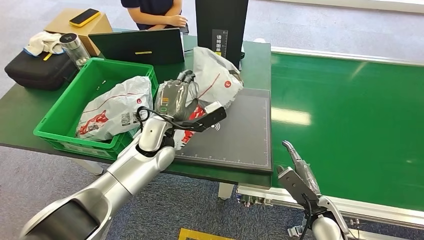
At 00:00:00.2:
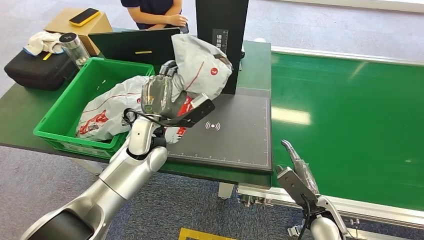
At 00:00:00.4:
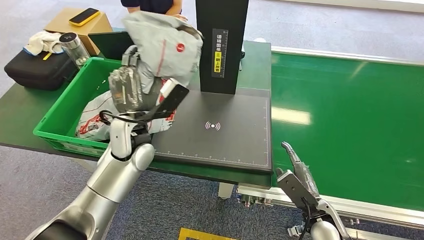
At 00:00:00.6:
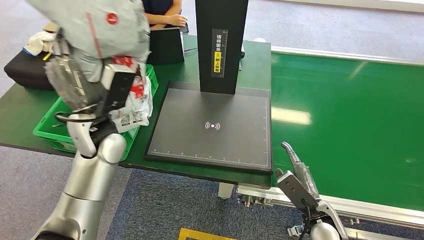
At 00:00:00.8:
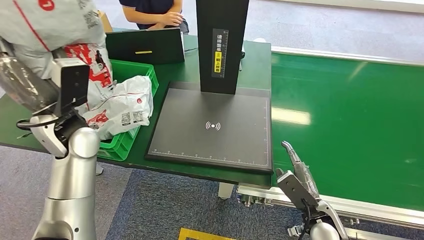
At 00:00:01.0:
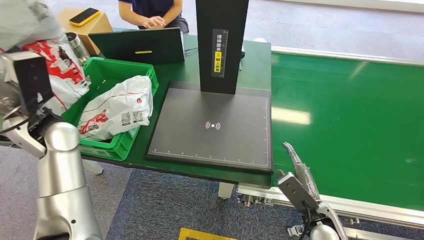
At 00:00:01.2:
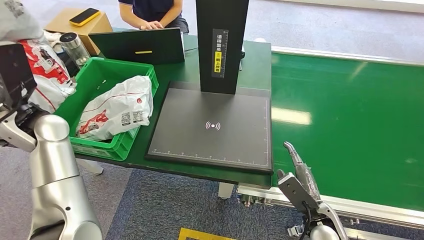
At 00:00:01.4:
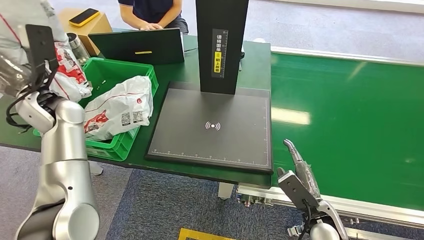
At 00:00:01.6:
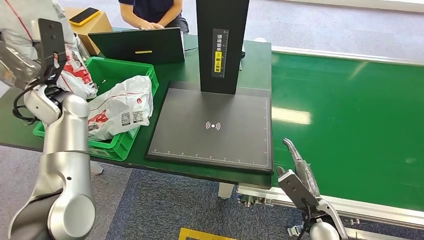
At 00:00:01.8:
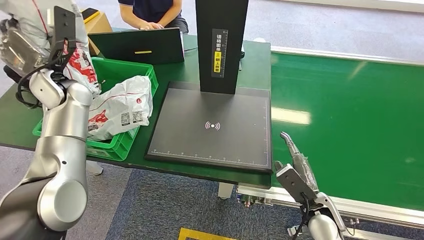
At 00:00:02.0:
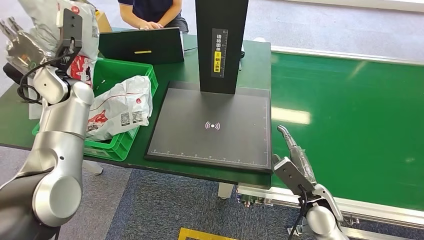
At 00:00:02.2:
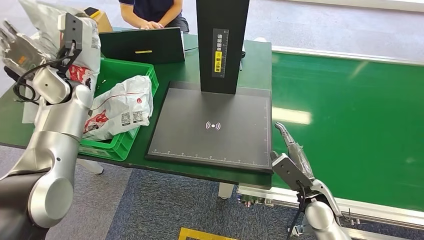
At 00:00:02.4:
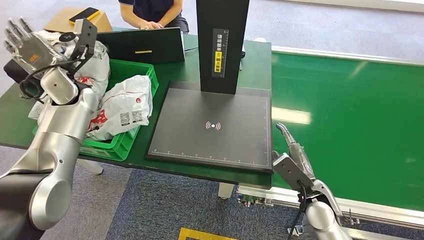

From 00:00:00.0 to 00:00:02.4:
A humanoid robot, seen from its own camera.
Step, from 00:00:00.2 to 00:00:02.4: Place the package into the parcel locker.

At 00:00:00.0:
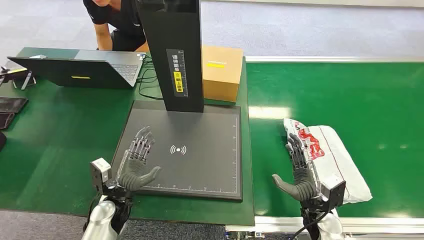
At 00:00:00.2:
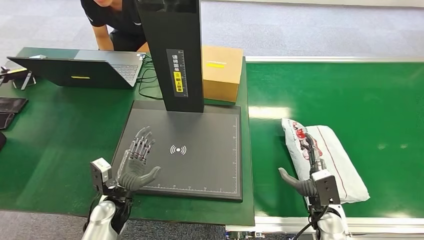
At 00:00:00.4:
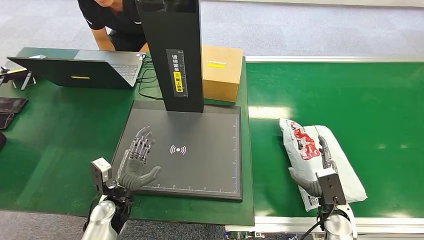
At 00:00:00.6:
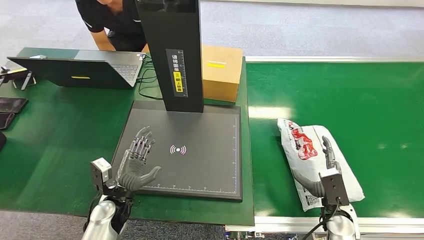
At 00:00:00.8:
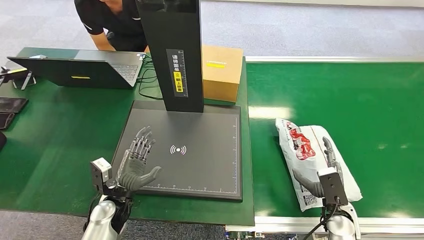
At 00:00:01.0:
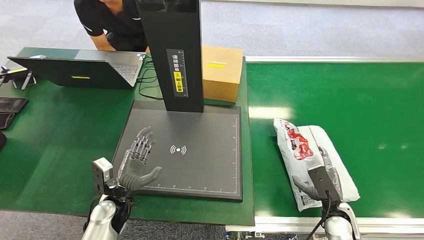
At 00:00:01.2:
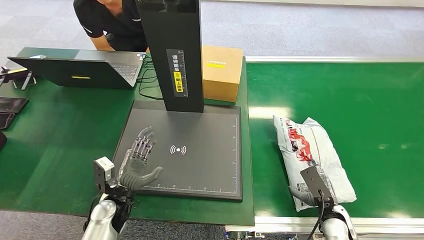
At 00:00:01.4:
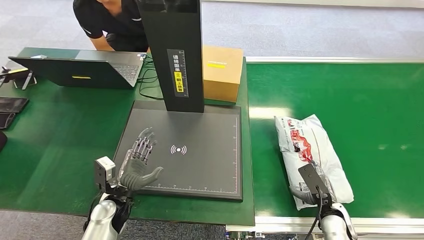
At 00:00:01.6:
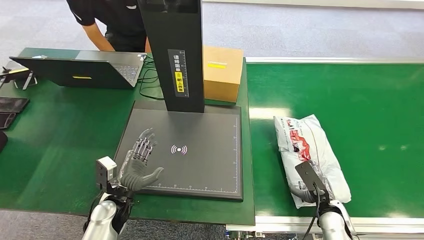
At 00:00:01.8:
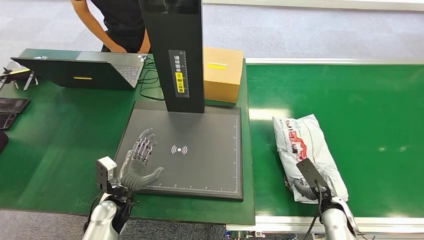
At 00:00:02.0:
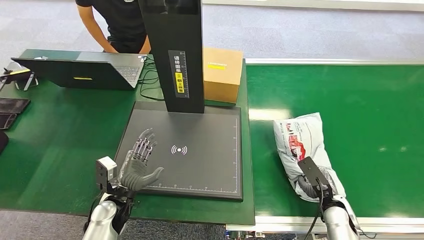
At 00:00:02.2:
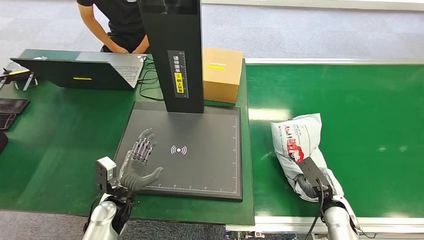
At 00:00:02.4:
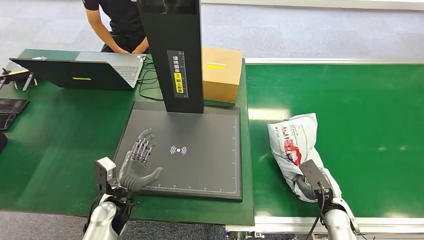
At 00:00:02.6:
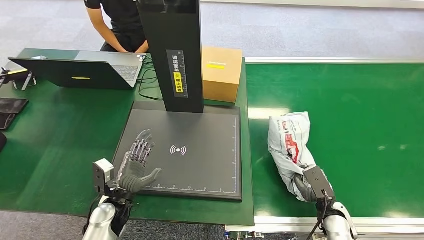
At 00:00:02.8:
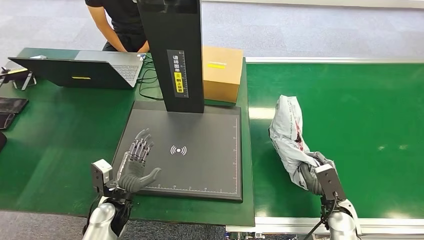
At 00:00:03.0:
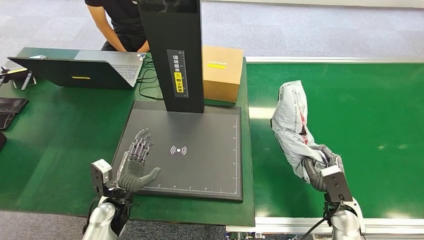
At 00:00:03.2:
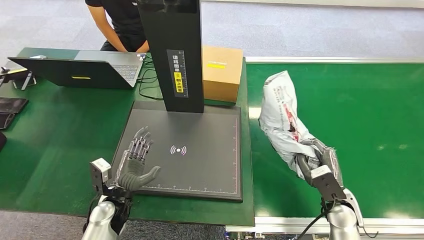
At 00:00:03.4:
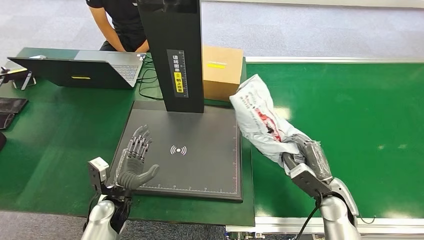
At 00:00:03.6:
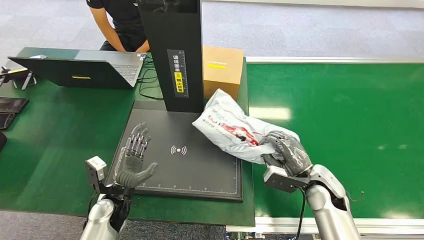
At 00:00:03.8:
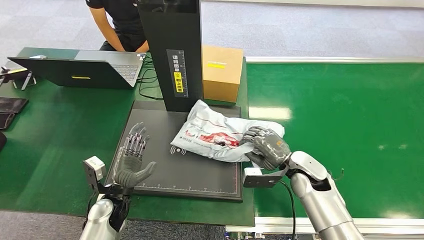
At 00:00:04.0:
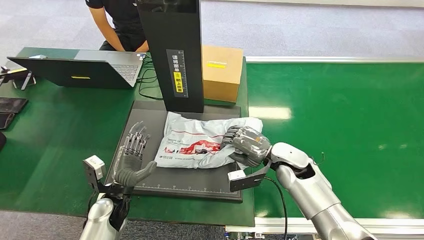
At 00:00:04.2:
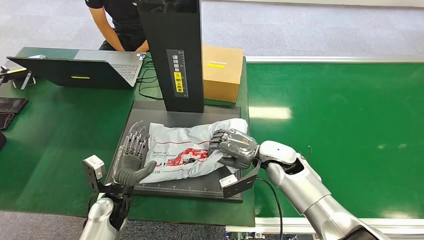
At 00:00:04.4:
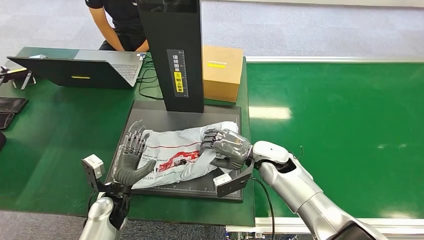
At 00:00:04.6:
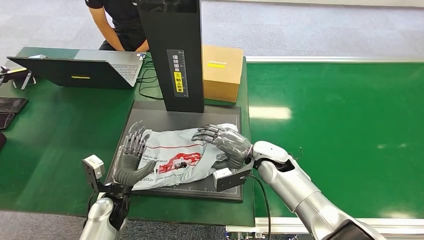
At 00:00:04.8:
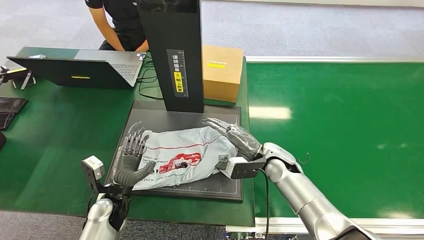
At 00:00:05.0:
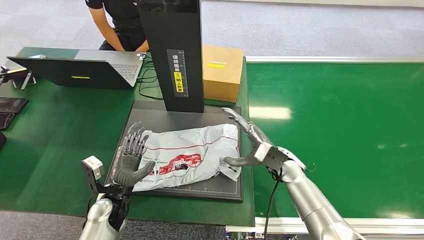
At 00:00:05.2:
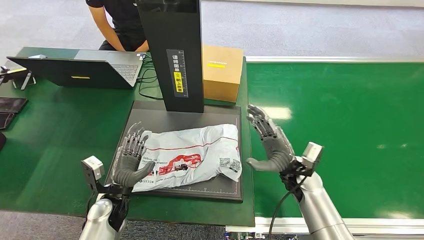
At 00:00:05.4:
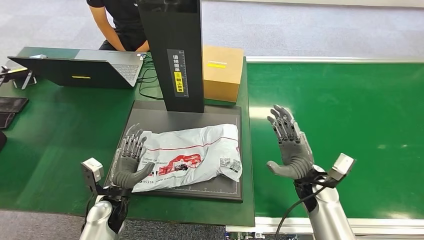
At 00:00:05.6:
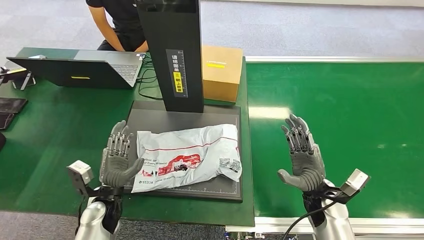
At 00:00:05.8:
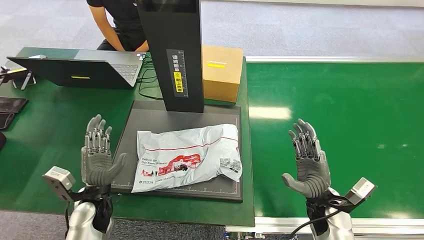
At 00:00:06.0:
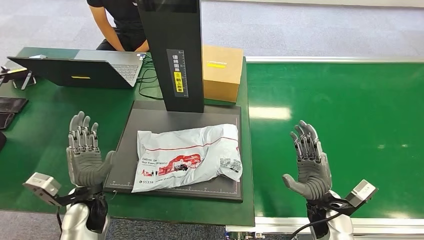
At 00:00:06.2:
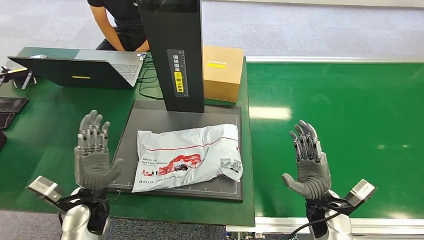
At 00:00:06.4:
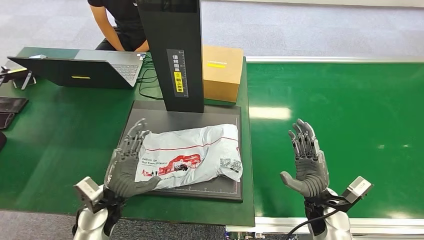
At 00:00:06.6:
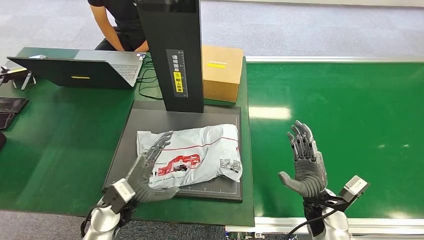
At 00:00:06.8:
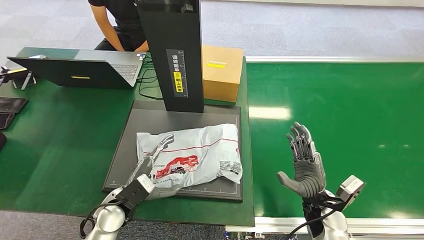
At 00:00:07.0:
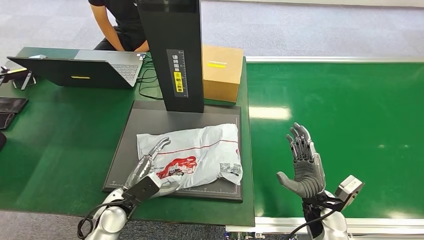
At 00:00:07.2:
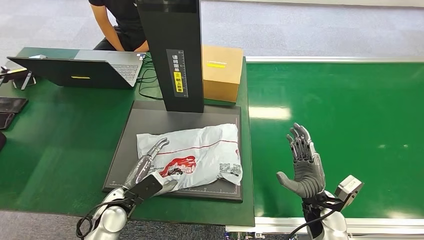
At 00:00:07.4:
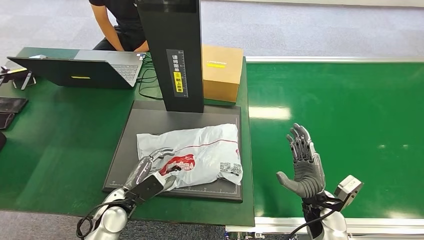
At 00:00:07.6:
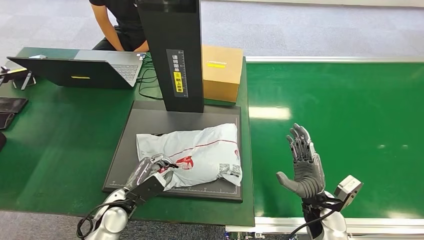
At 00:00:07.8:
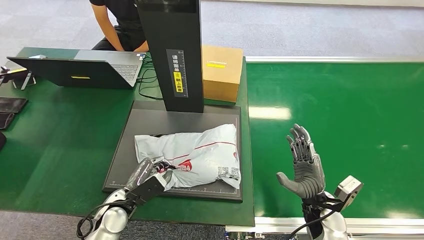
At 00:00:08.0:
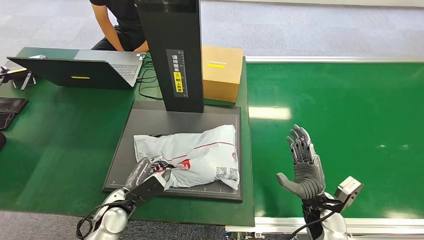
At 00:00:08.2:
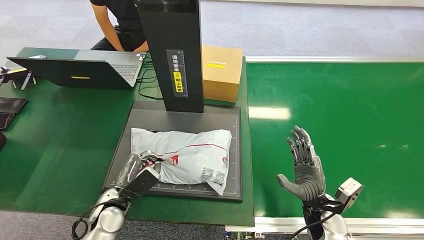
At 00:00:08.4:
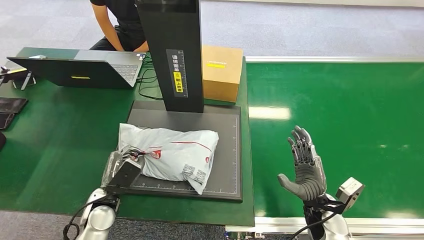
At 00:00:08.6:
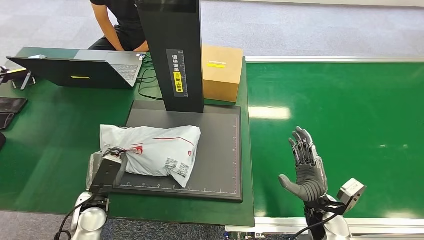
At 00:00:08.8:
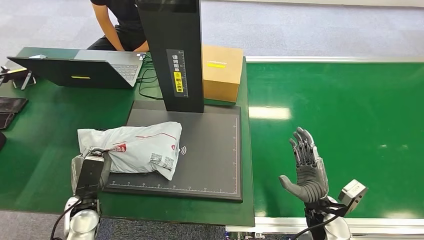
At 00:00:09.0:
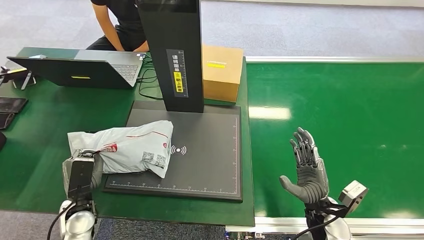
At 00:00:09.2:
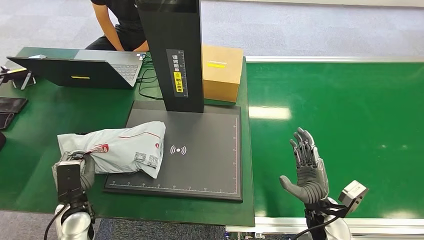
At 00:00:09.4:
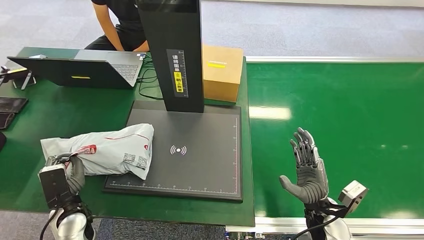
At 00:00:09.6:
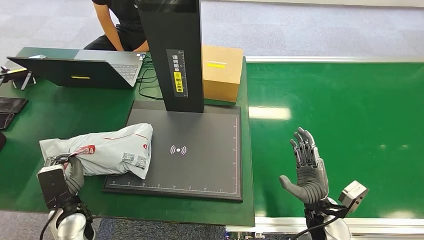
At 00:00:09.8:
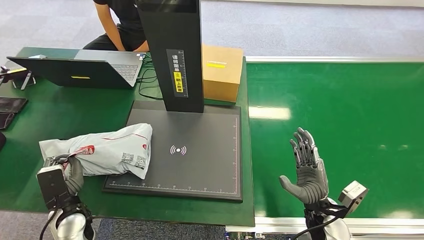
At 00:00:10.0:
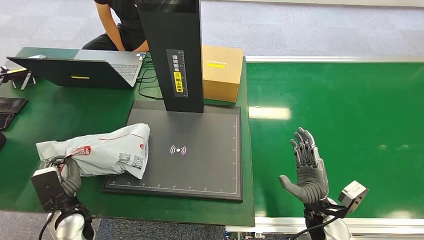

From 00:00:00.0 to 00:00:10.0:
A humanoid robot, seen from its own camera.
Step, from 00:00:00.0 to 00:00:03.2: Pick up the package from the conveyor belt.
Step, from 00:00:03.4 to 00:00:05.8: Place the package onto the inbound machine.
Step, from 00:00:06.0 to 00:00:09.2: Pick up the package from the inbound machine.
From 00:00:02.8 to 00:00:04.2: The right hand goes some 25 cm to the left, forward and upward.
From 00:00:04.2 to 00:00:05.8: The right hand heads backward, to the right and downward, covering roughly 15 cm.
From 00:00:07.2 to 00:00:08.6: The left hand is displaced to the left by approximately 5 cm.

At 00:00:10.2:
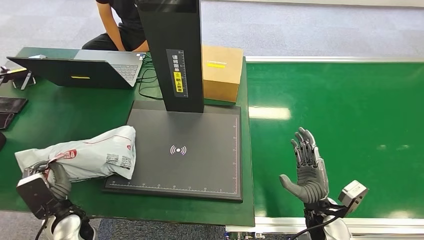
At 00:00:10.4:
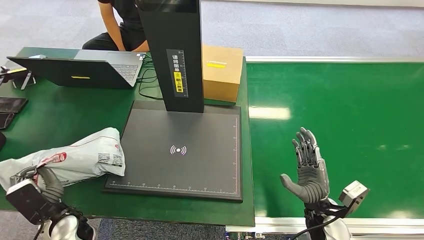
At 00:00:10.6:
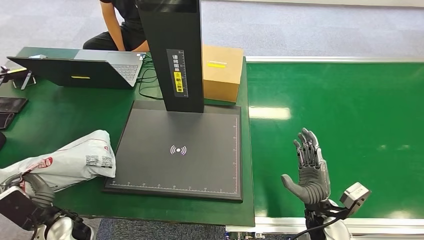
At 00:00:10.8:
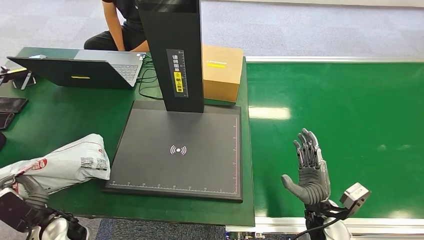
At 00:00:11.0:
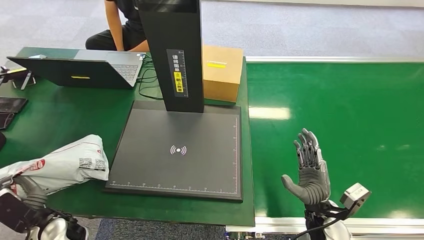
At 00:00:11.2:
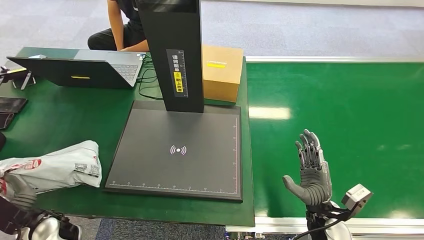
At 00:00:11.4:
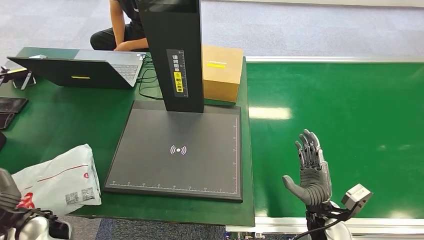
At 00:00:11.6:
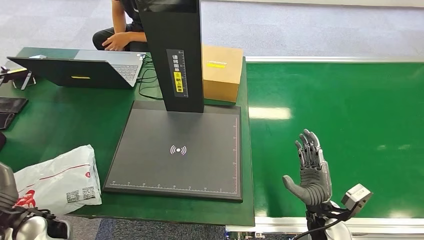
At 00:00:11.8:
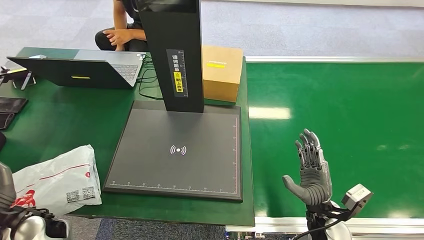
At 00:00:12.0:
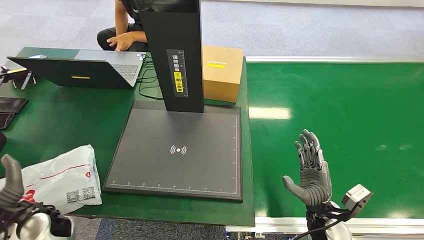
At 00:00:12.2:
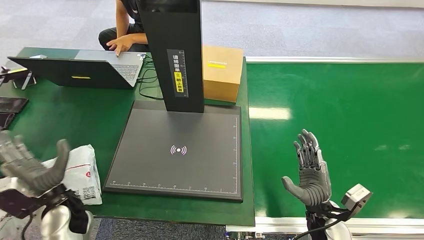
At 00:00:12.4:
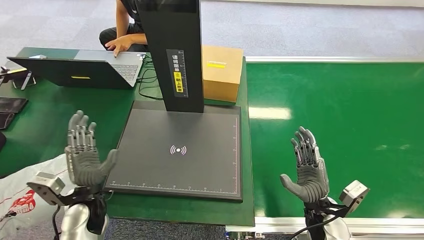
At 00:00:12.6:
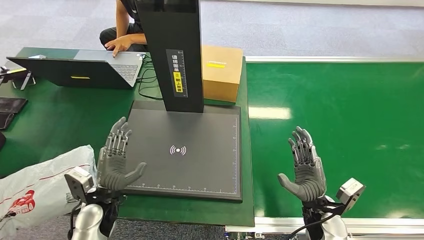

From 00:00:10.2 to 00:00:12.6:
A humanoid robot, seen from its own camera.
Step, from 00:00:10.2 to 00:00:12.6: Place the package into the parcel locker.
From 00:00:10.2 to 00:00:11.4: The left hand shifts about 5 cm to the left.
From 00:00:11.4 to 00:00:12.6: The left hand shifts some 15 cm to the right.
